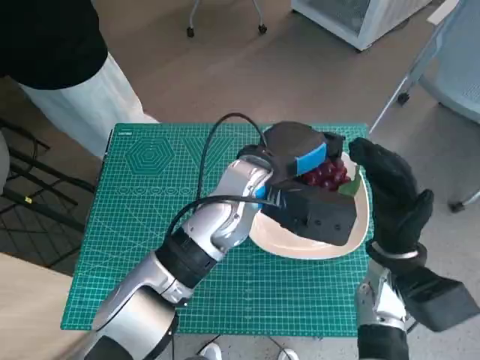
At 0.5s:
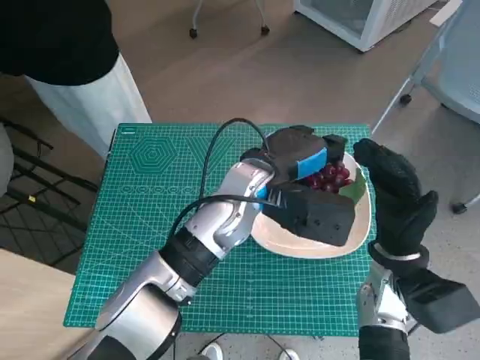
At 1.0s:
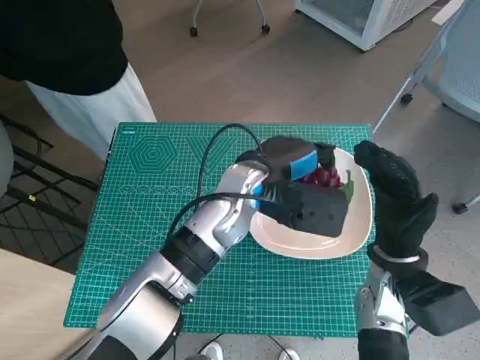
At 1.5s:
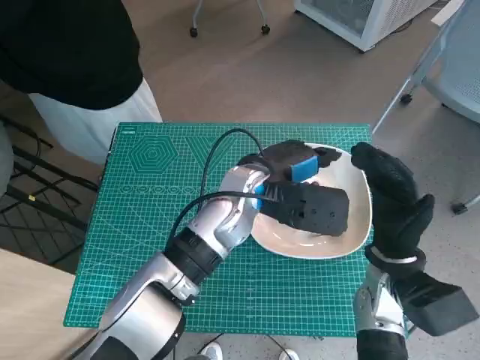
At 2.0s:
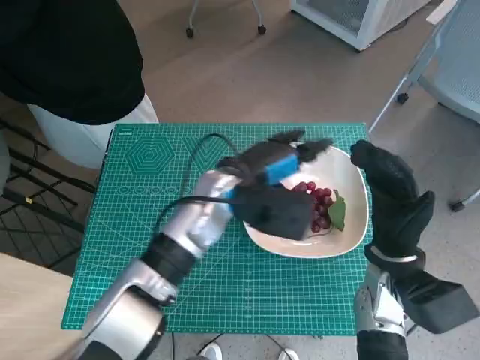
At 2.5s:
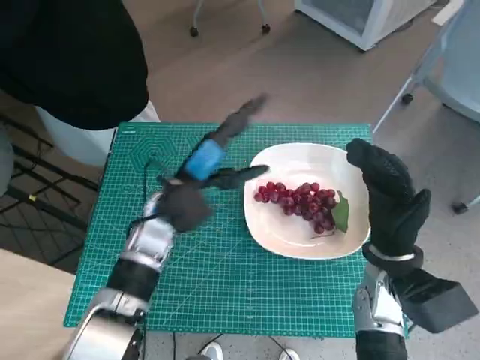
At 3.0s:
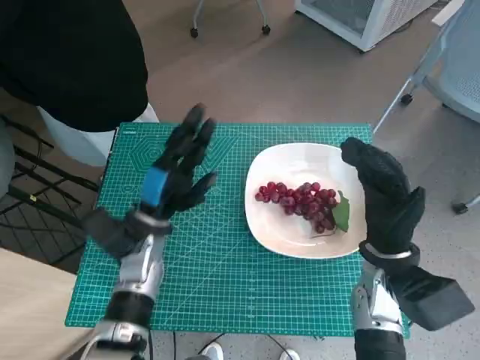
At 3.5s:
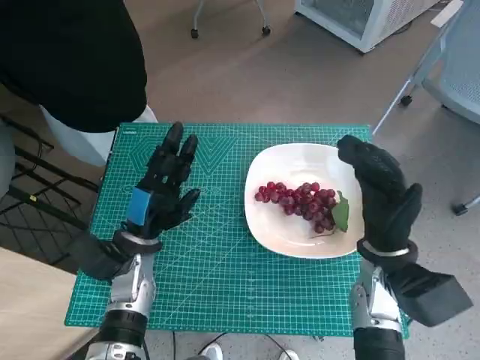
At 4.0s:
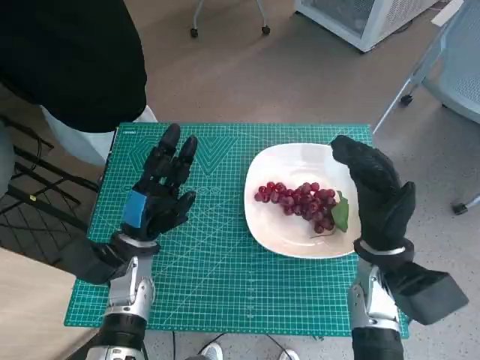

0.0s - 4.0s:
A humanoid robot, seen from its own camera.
Task of the whole recording: Pick up the grapes and put them on the plate.
2.0s - 4.0s: The left hand goes about 20 cm to the left, downward and backward.

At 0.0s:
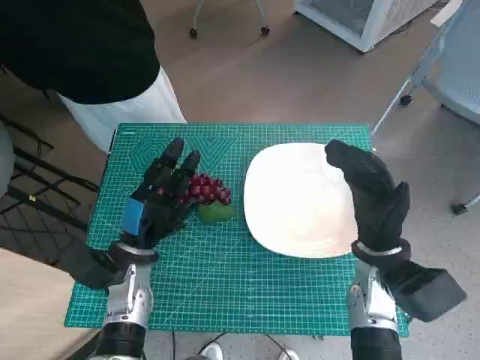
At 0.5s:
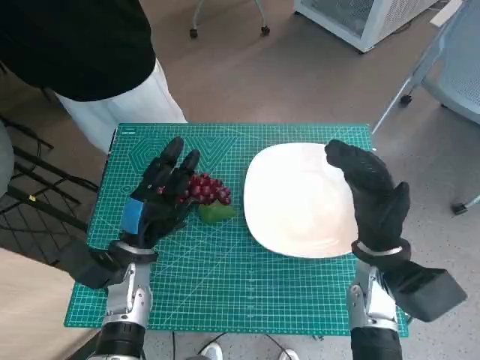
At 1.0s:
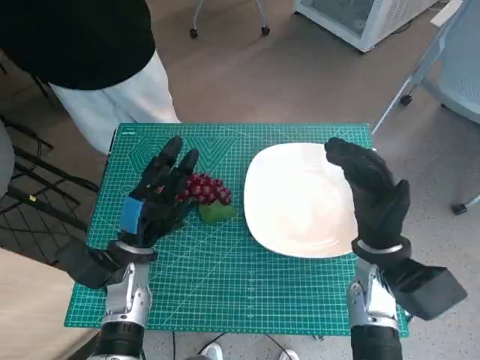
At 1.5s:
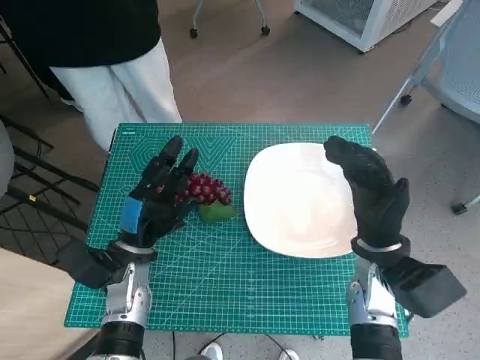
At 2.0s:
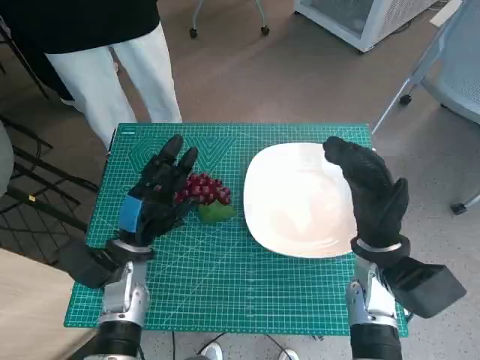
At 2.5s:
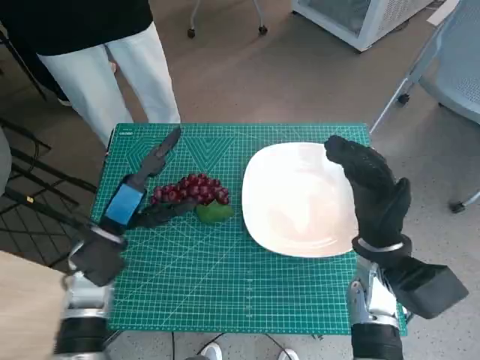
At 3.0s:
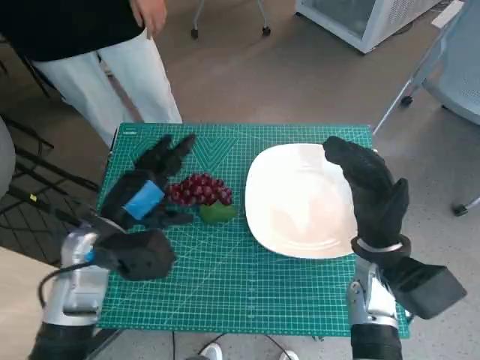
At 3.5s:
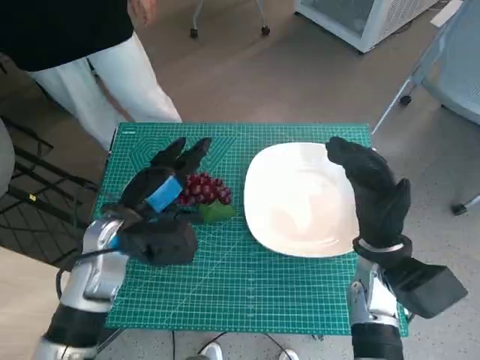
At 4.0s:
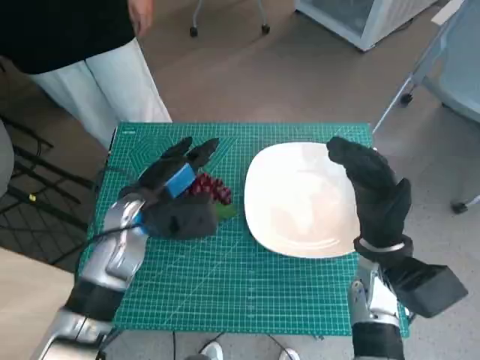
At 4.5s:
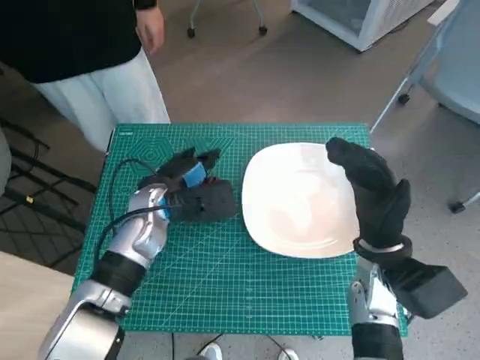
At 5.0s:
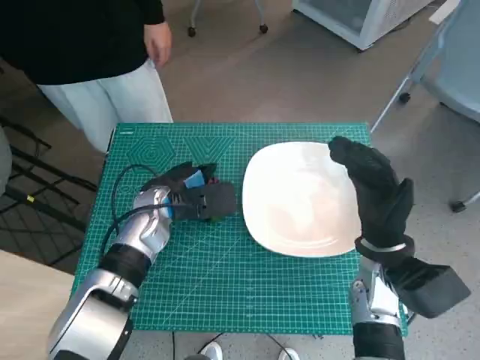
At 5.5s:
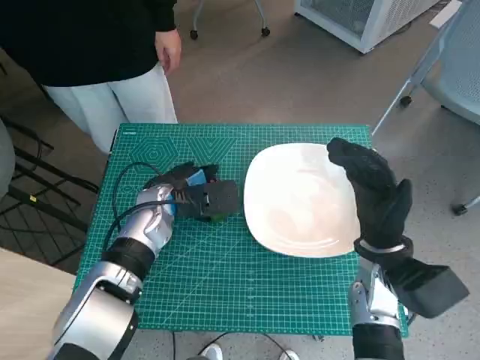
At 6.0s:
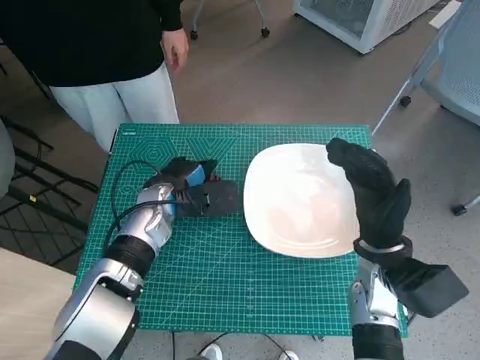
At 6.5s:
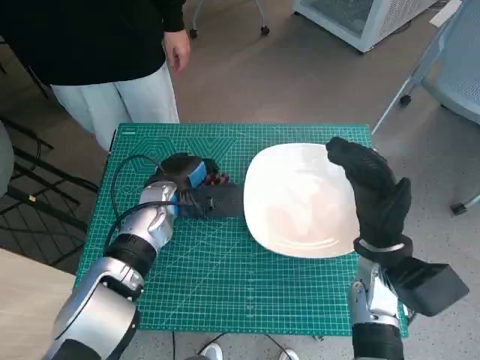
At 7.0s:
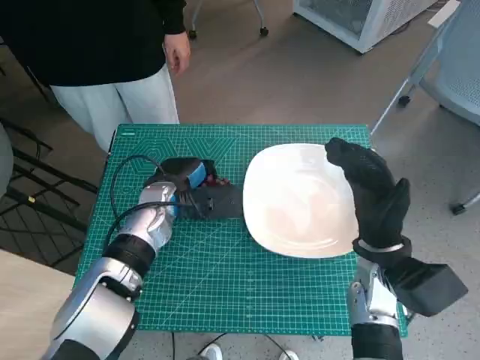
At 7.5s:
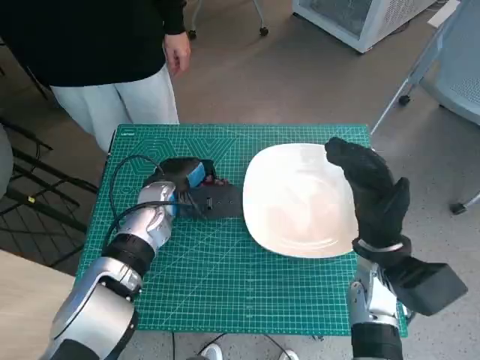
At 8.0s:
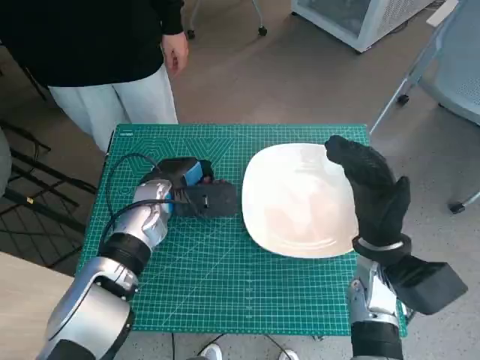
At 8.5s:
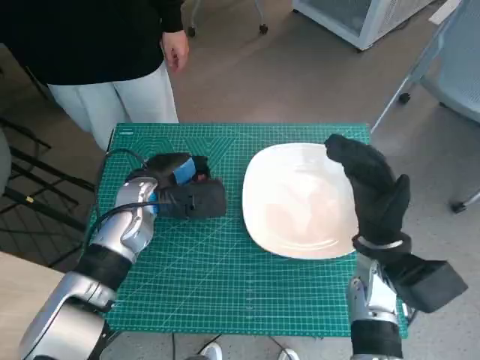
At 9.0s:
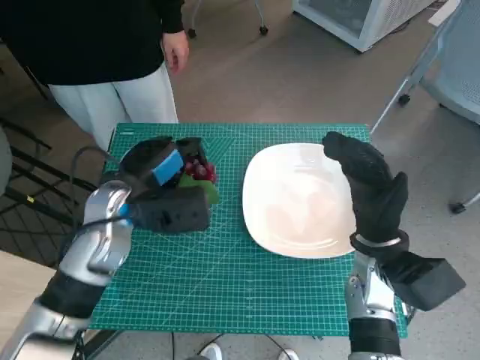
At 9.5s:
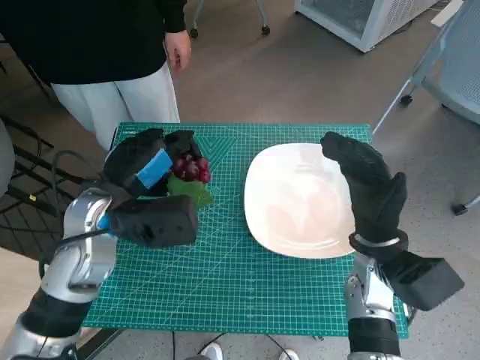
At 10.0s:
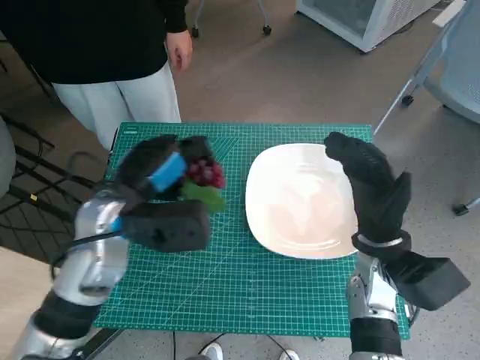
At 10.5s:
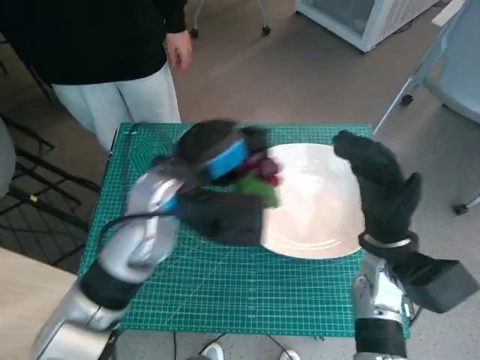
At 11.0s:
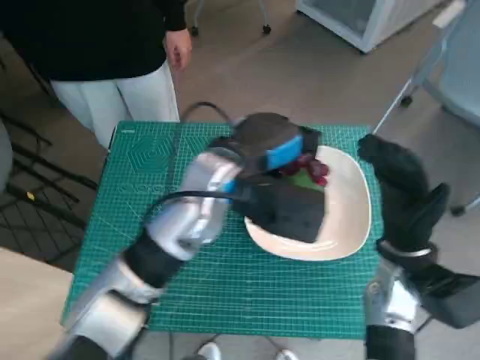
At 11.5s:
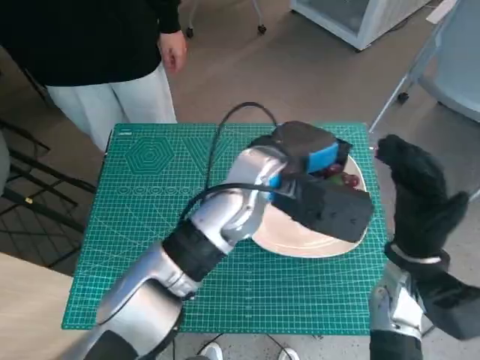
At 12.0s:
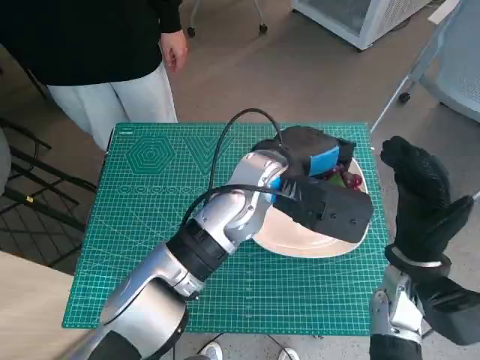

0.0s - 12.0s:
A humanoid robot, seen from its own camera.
Task of the whole recording: Pick up the grapes and put them on the plate.
Step, 0.0s - 5.0s: Grasp the grapes with left hand.
2.0s - 4.0s: The left hand shifts about 5 cm upward.
4.0s - 6.0s: The left hand moves approximately 5 cm.
6.0s - 8.0s: There are only small adjustments of the hands.
8.0s - 10.0s: The left hand moves upward and backward, about 10 cm.
10.0s - 12.0s: The left hand moves to the right, approximately 20 cm.

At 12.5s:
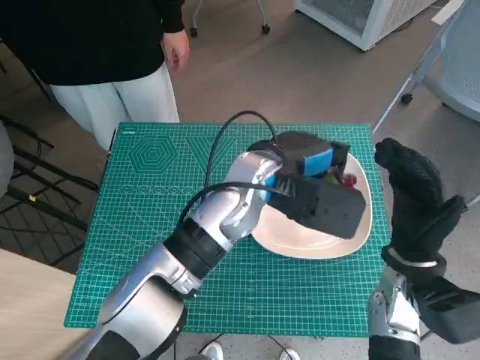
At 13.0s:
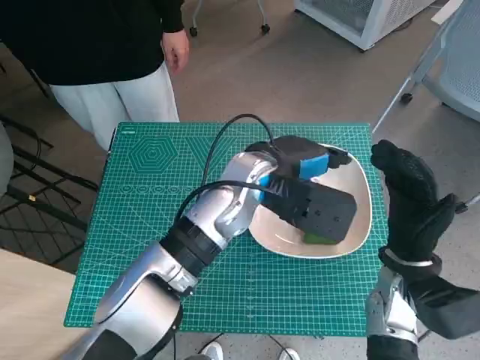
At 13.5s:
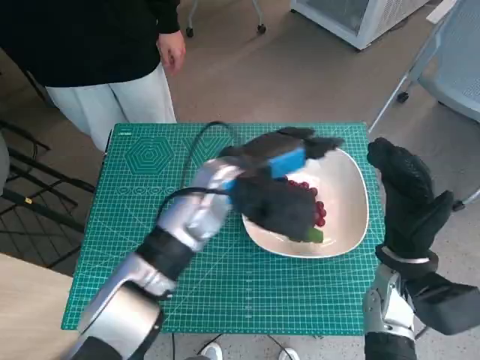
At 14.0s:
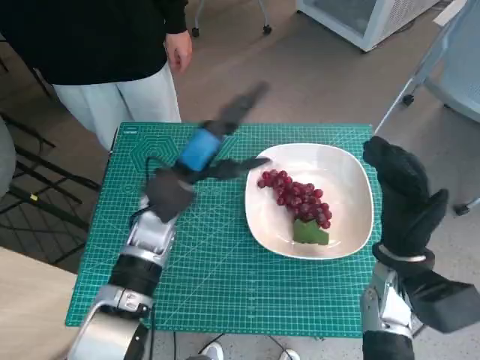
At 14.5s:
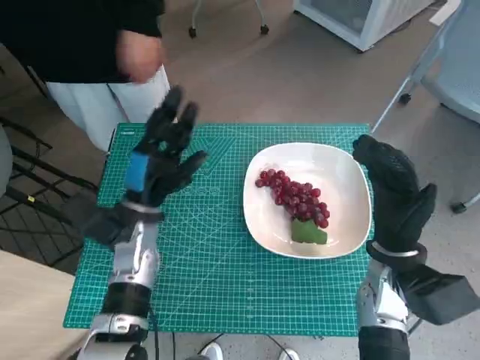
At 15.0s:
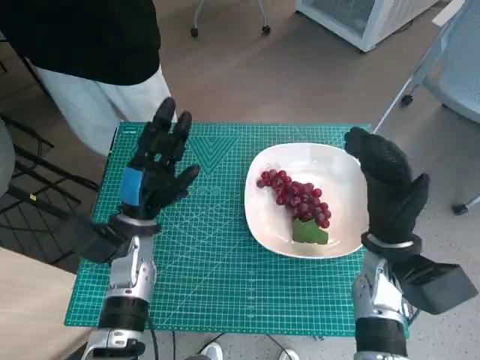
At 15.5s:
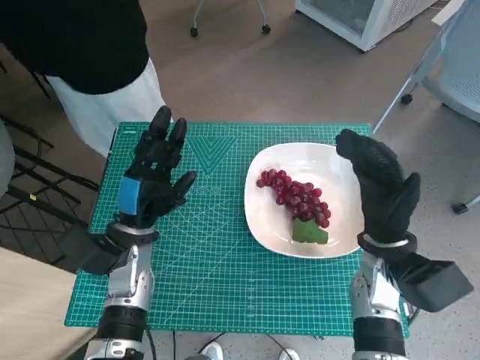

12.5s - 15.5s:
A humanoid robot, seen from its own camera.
Task of the whole recording: Pick up the grapes and put them on the plate.
12.5s - 14.0s: The left hand travels to the left and downward by some 15 cm.
14.0s - 15.5s: The left hand shifts approximately 10 cm to the left, downward and backward.

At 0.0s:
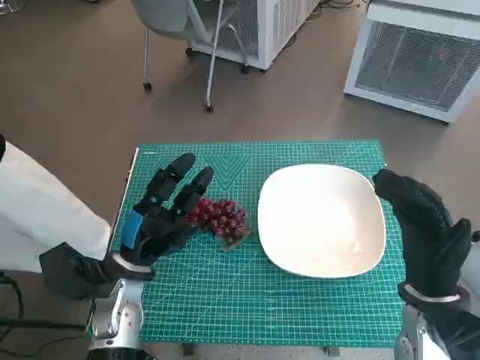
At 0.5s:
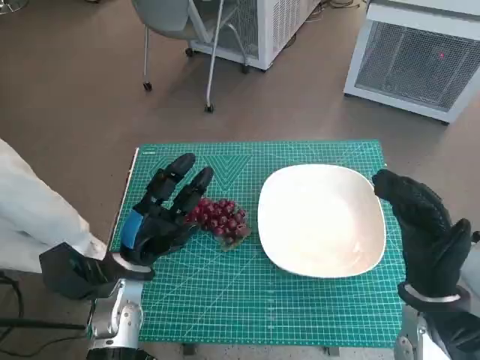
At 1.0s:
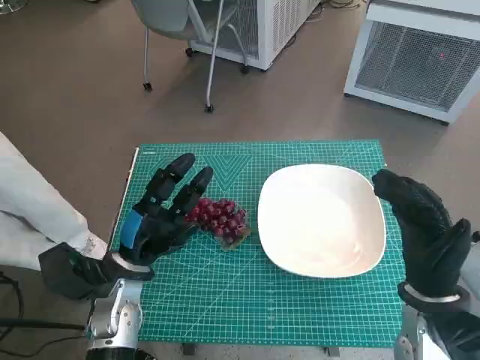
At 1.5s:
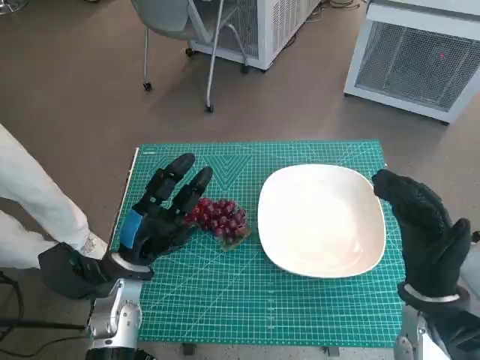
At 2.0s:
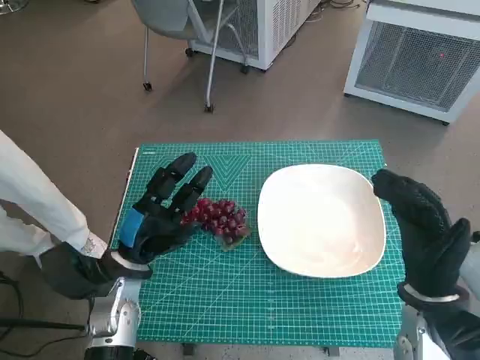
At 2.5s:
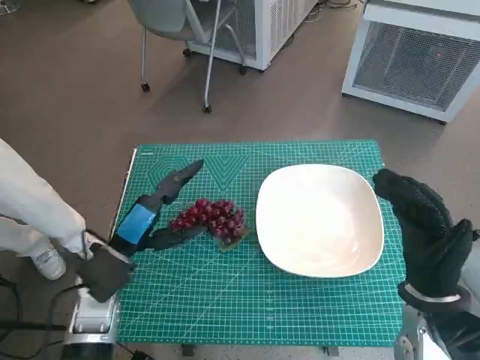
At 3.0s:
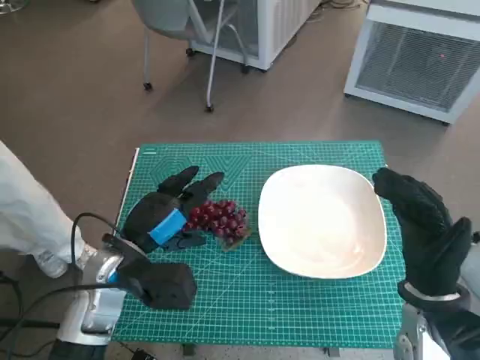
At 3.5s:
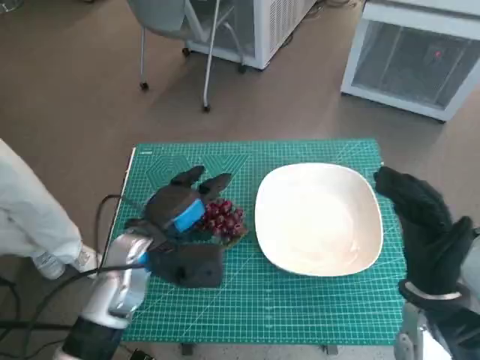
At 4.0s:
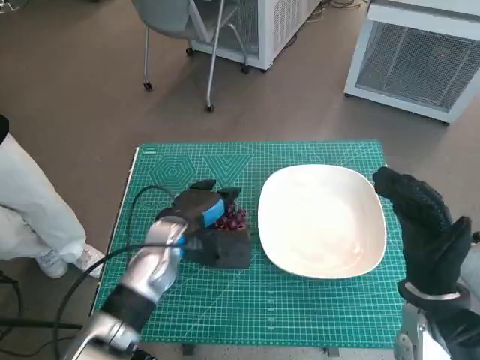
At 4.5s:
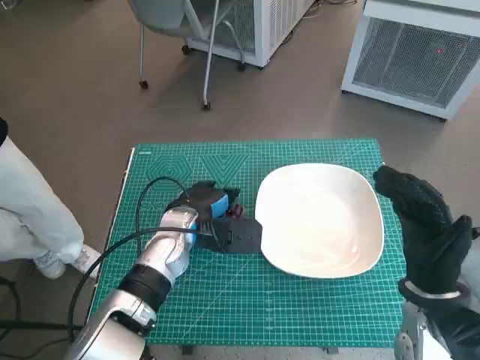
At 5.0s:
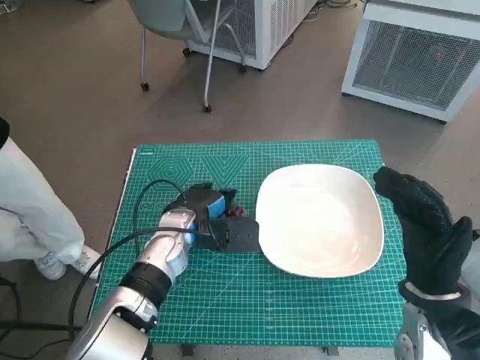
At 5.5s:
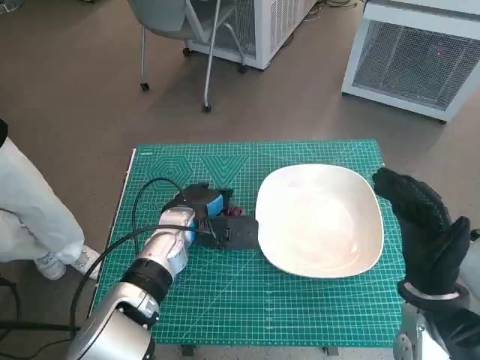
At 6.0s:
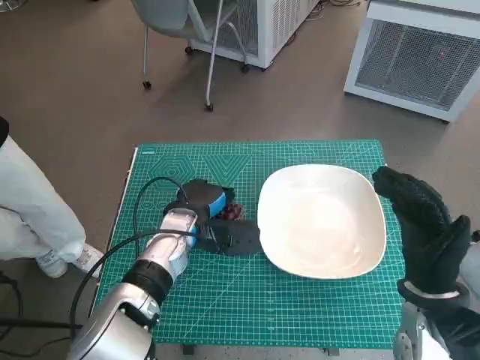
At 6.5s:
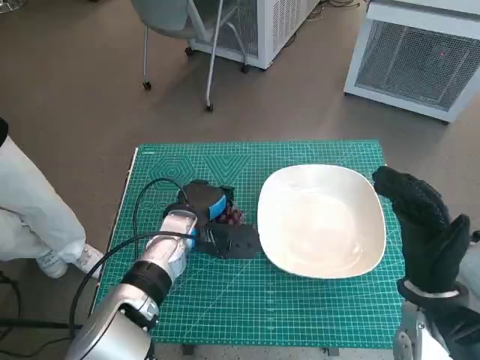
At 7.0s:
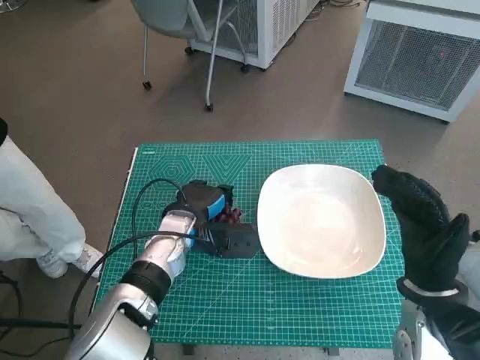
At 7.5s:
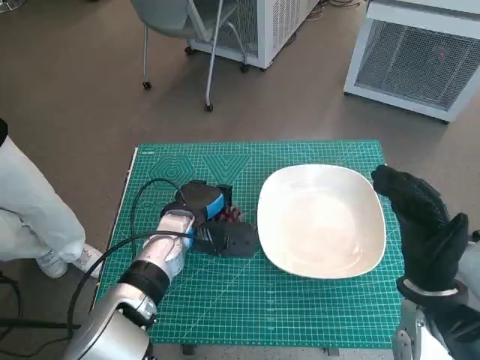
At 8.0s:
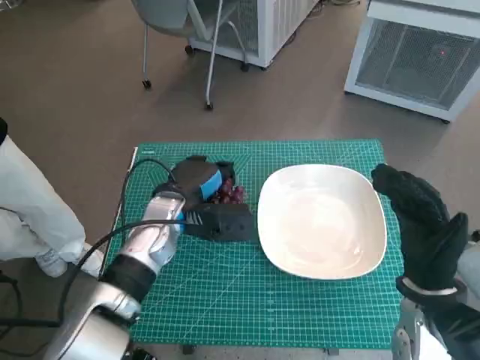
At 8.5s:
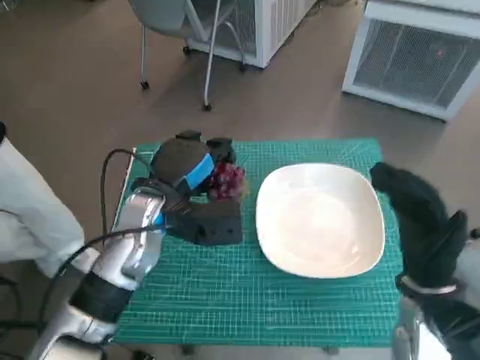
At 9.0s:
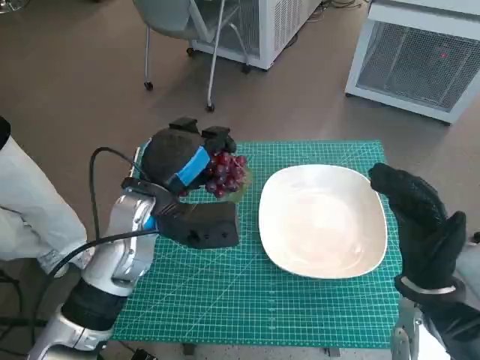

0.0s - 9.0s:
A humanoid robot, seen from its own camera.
Task of the whole recording: Pick up the grapes and put them on the plate.
Step, 0.0s - 6.0s: Grasp the grapes with left hand.
2.0s - 4.5s: The left hand is displaced to the right and forward by about 10 cm.
4.5s - 7.0s: The hands stay close to where they were, moving slightly.
7.0s - 9.0s: The left hand goes roughly 10 cm upward.
